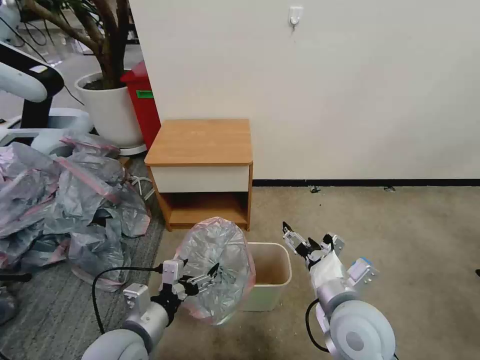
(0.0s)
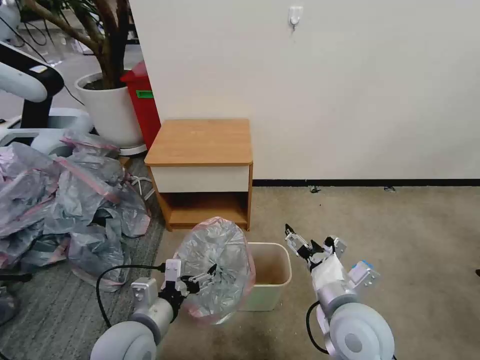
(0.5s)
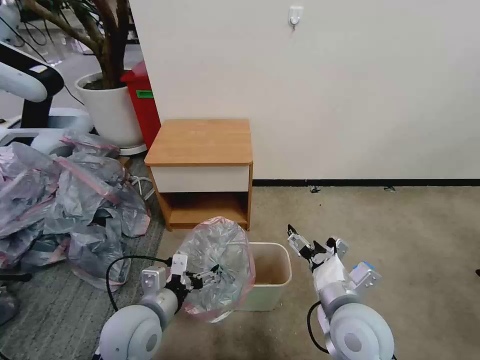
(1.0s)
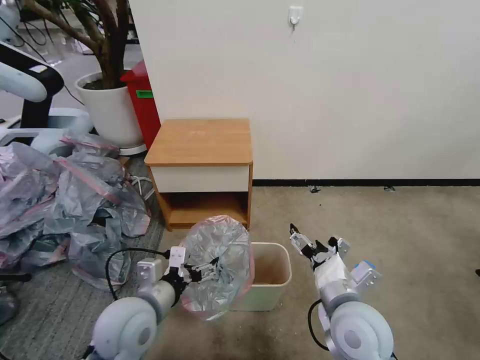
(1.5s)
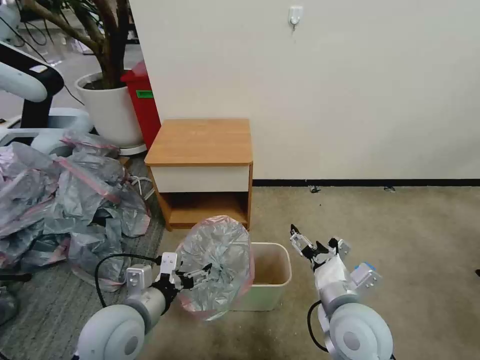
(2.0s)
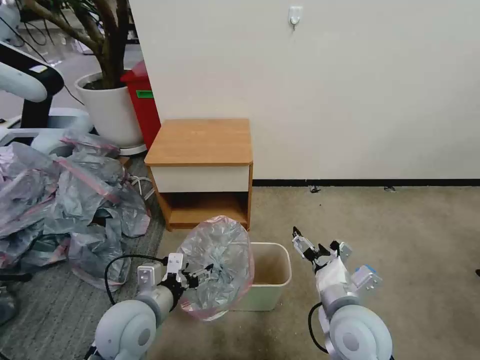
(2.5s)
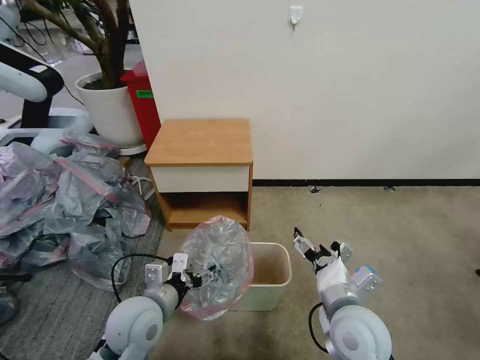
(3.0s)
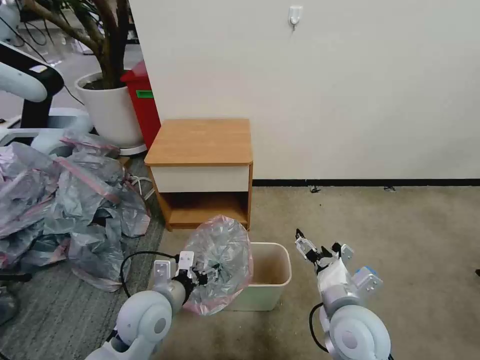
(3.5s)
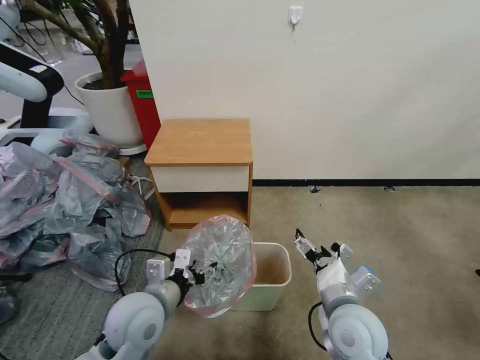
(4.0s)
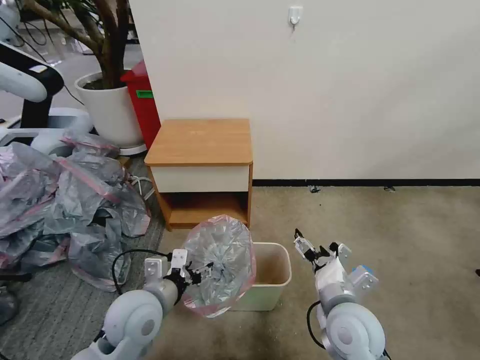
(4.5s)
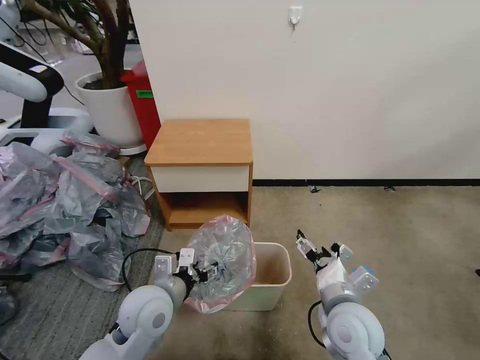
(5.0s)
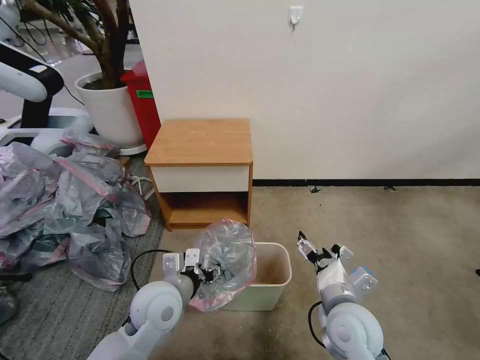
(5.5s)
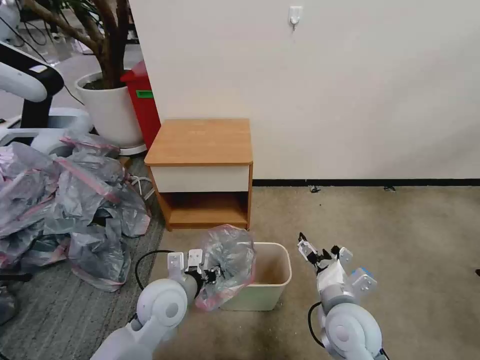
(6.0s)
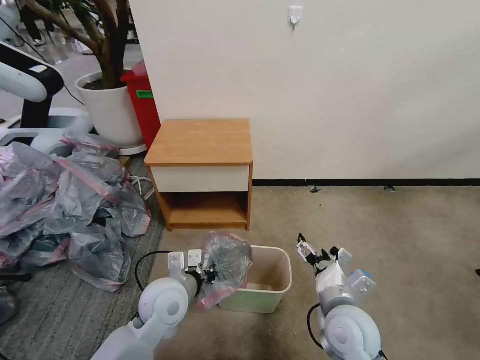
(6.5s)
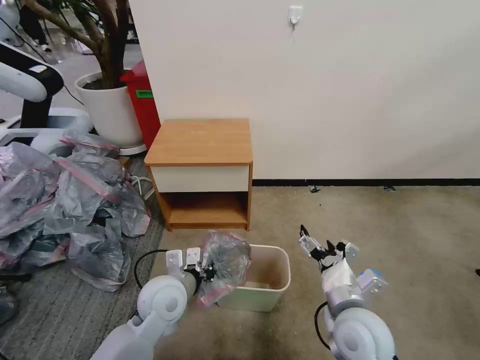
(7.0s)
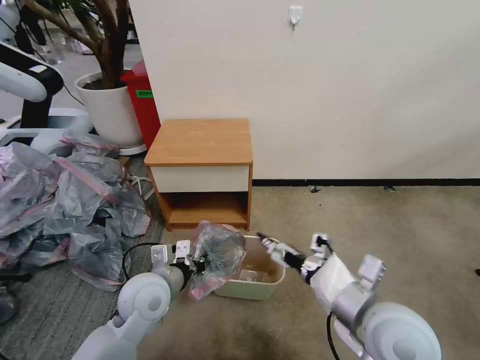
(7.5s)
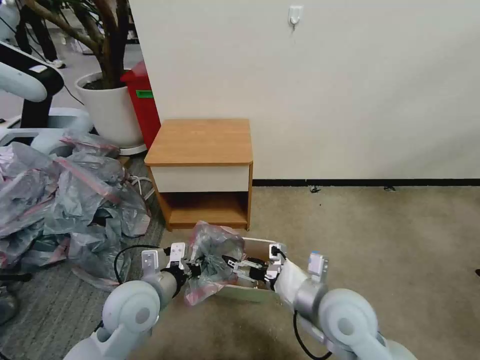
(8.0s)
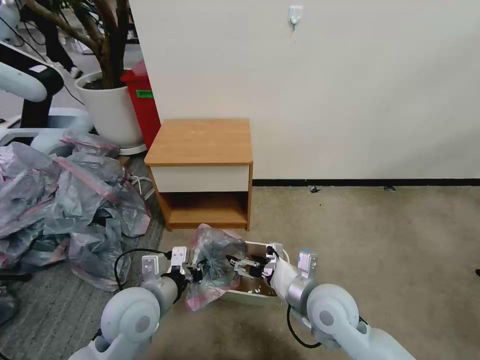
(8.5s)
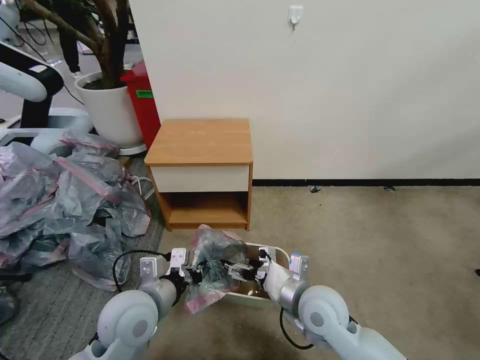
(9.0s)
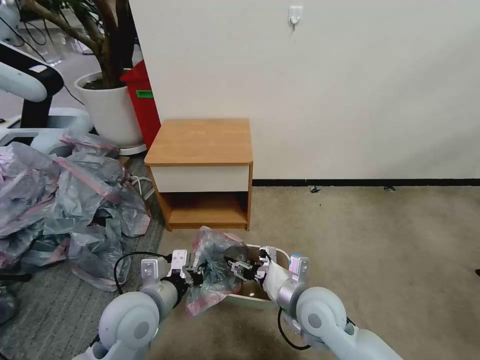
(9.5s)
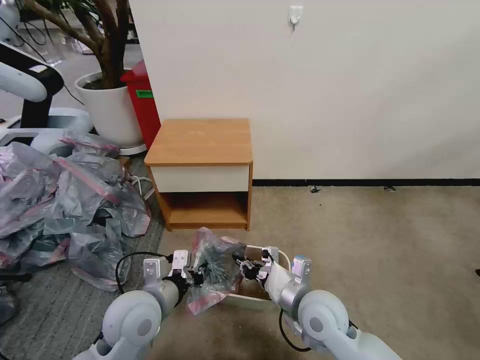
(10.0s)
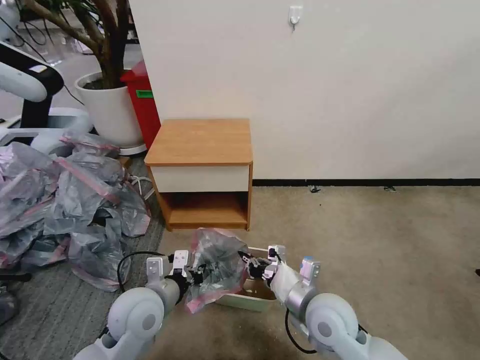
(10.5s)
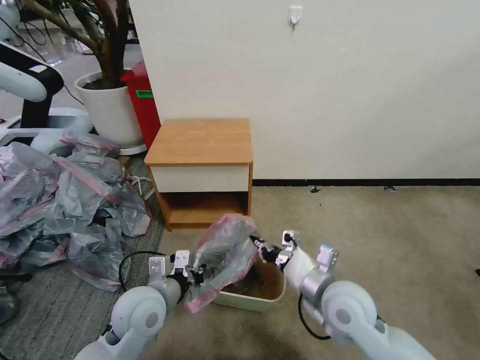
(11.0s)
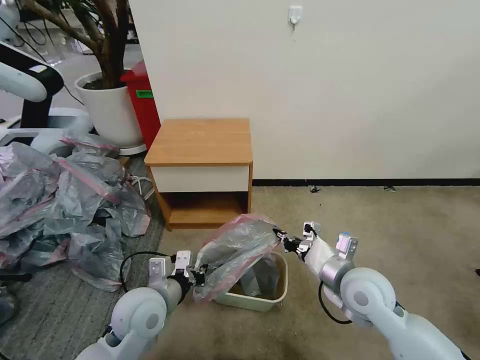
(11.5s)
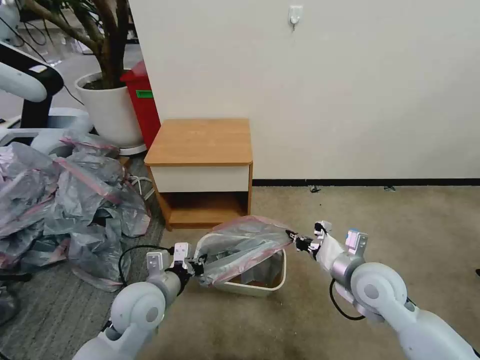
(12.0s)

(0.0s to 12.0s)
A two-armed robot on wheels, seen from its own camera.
Task of the whole recording: Pick up the garbage bag from the table and place it over the trash can.
0.0s - 2.0s: The grippers make only small movements.
4.0s - 6.0s: The left gripper changes place by roughly 5 cm.
6.0s - 8.0s: The right gripper moves upward, roughly 5 cm. The left gripper moves some 5 cm, and closes.
8.0s - 10.0s: The right gripper is displaced downward by about 5 cm, and closes its fingers.
10.0s - 12.0s: The right gripper is displaced to the right by approximately 10 cm.

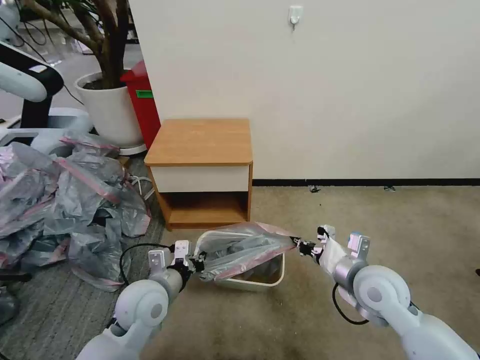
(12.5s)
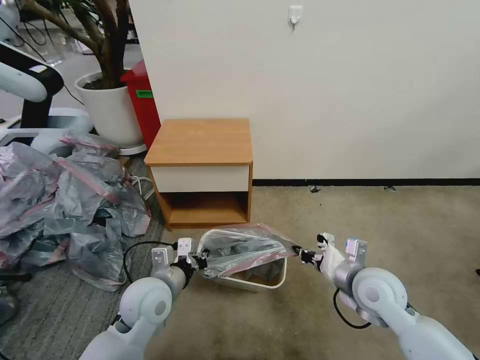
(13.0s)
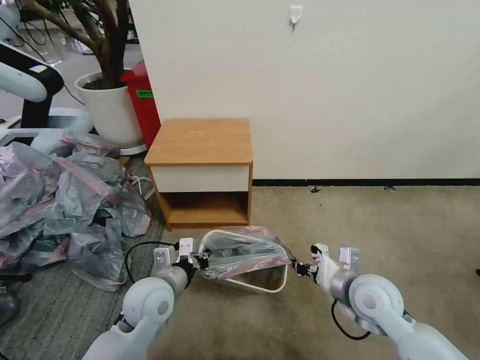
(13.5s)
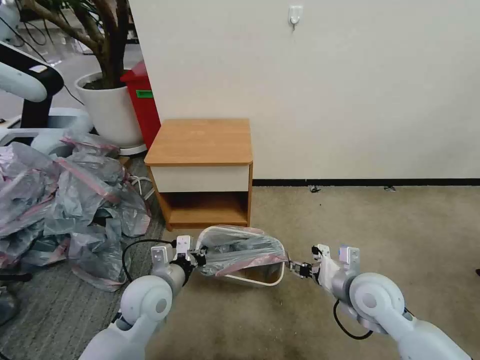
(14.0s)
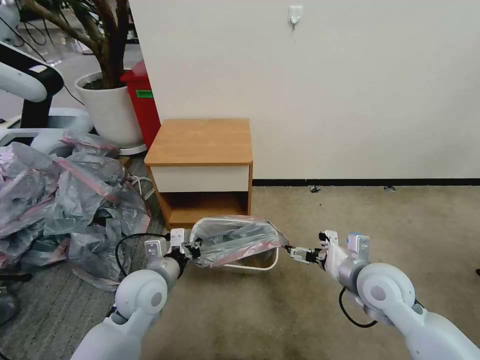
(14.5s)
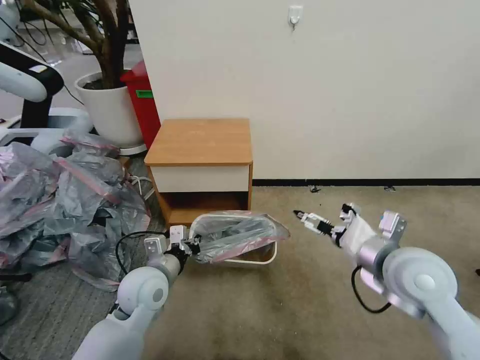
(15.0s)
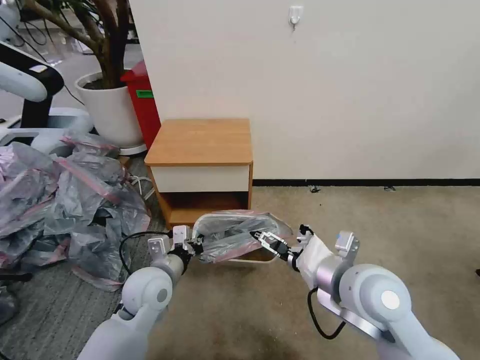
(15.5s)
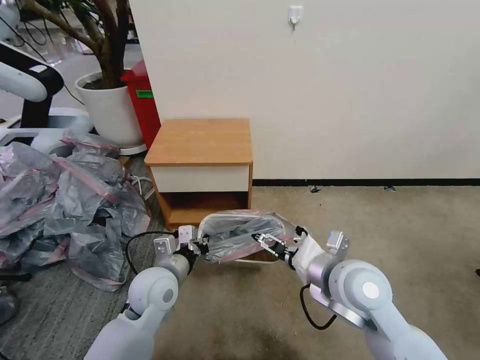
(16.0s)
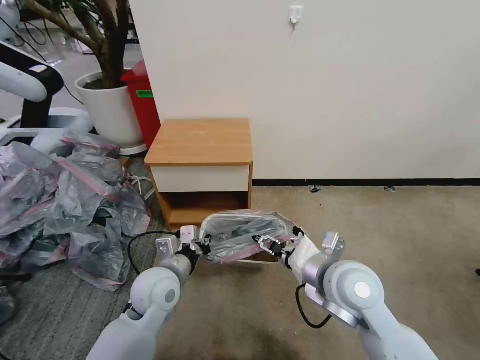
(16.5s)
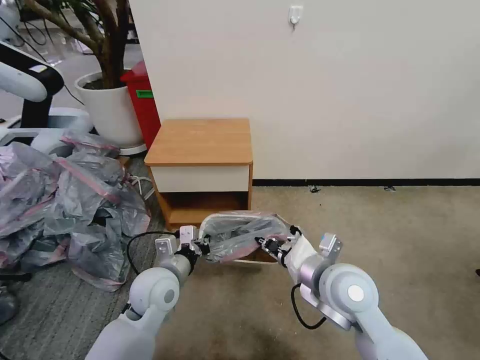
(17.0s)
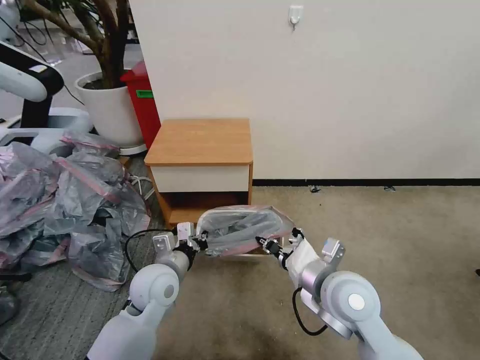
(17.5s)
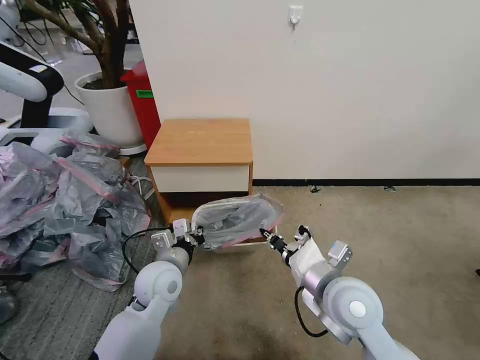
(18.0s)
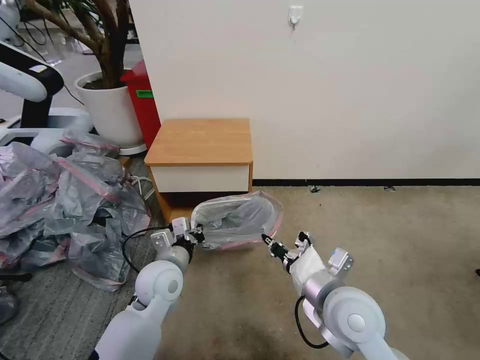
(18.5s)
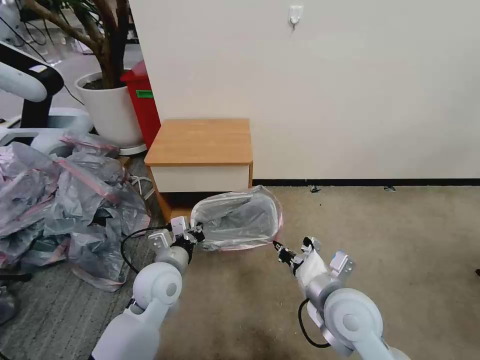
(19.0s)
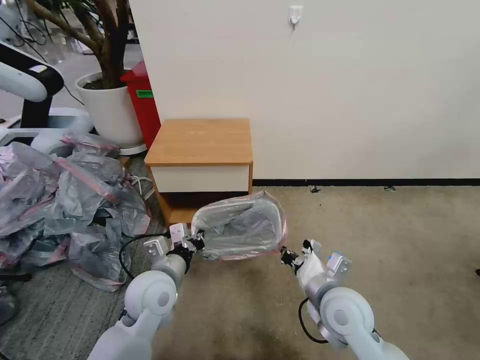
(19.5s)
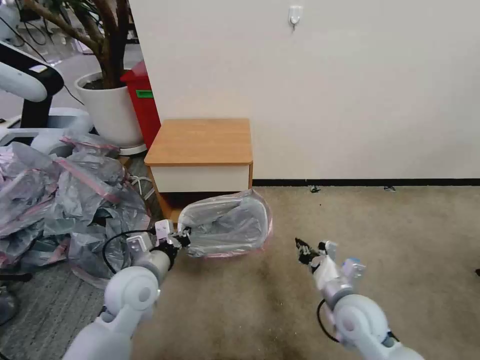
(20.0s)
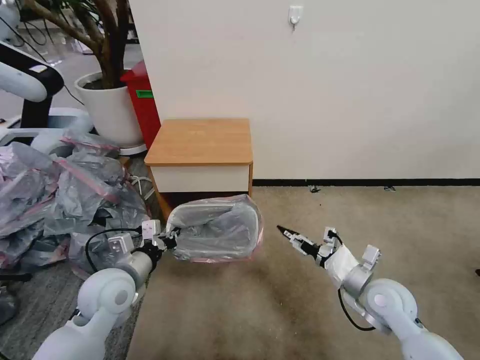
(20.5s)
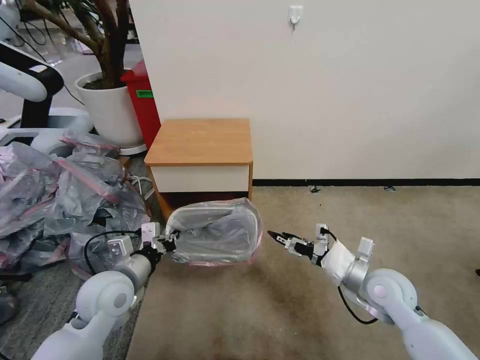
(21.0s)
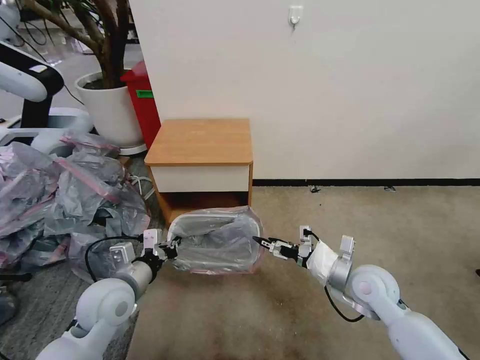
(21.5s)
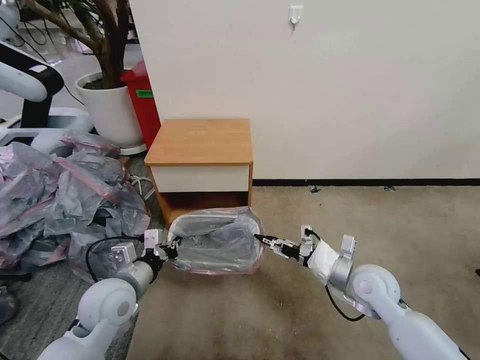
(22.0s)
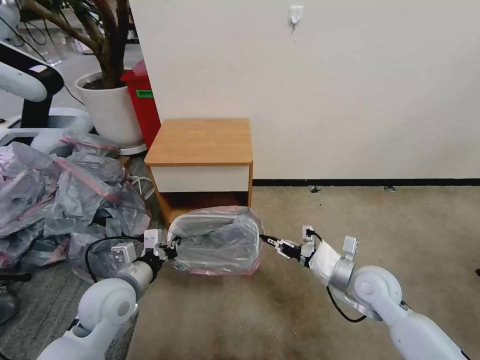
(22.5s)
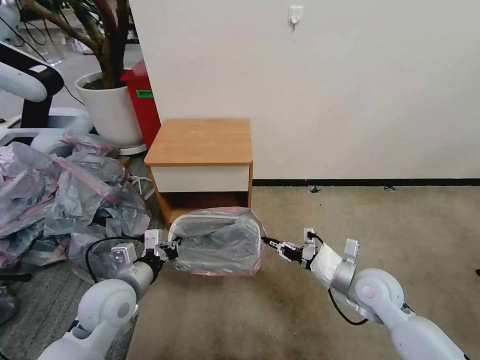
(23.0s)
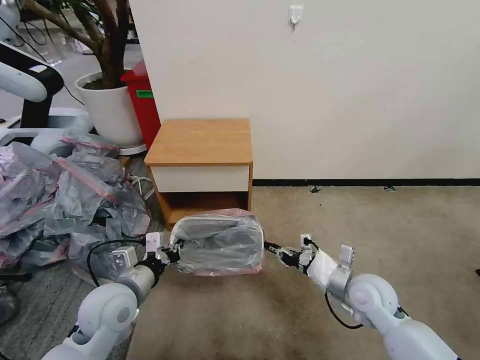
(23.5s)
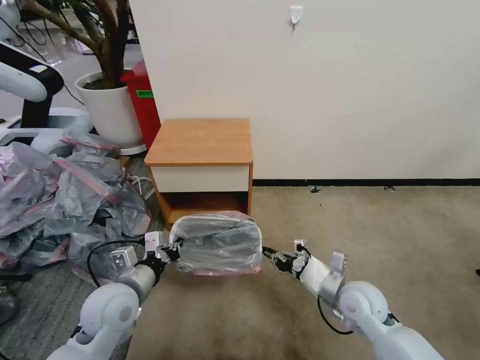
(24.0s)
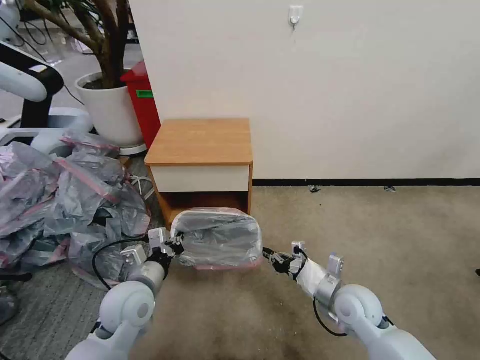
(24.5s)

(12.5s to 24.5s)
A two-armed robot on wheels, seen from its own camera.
Task of the whole recording: Pick up the garbage bag from the table and place it over the trash can.
12.5s - 14.5s: The right gripper opens its fingers.
14.5s - 16.5s: The right gripper shifts roughly 10 cm to the left, and closes up.
16.5s - 18.5s: The right gripper closes.
18.5s - 20.5s: The left gripper moves to the left, about 10 cm, while the right gripper heads to the right and downward, covering some 15 cm, and opens its fingers.
20.5s - 22.5s: The right gripper closes its fingers.
22.5s - 24.5s: The right gripper shifts by roughly 5 cm.

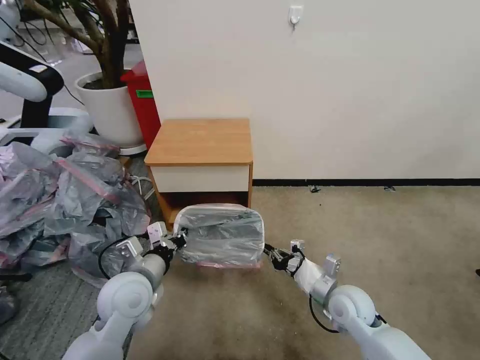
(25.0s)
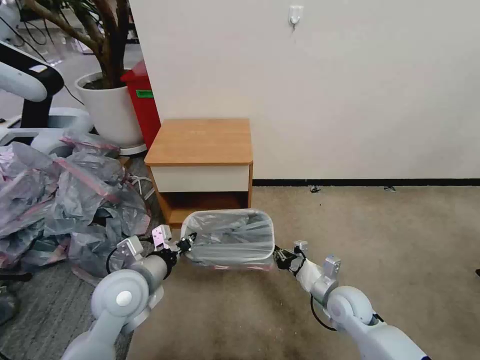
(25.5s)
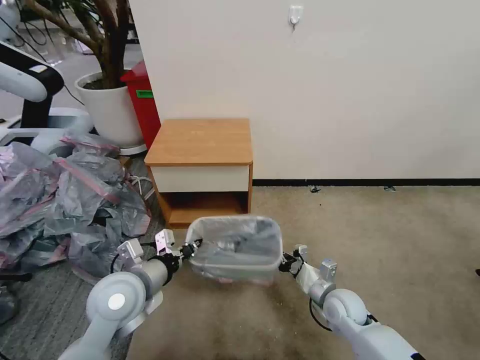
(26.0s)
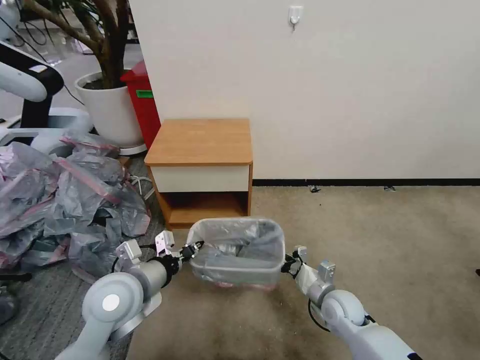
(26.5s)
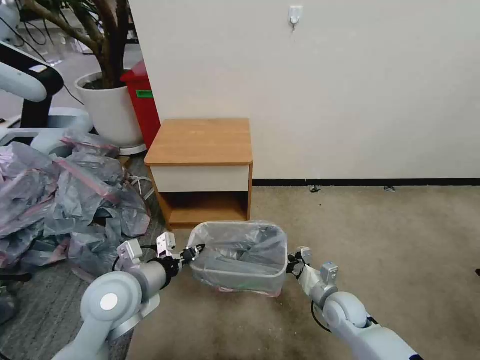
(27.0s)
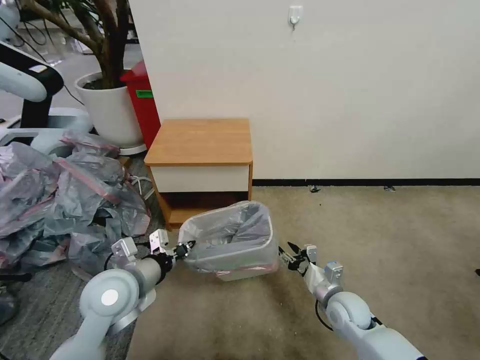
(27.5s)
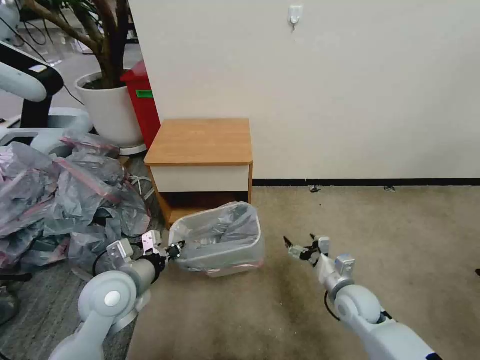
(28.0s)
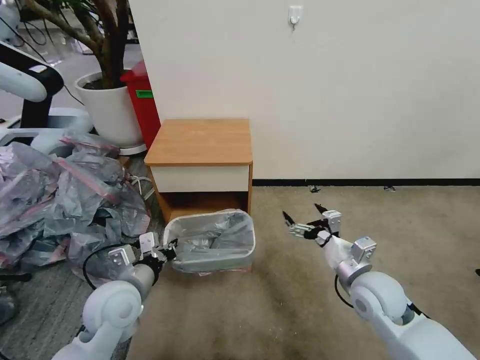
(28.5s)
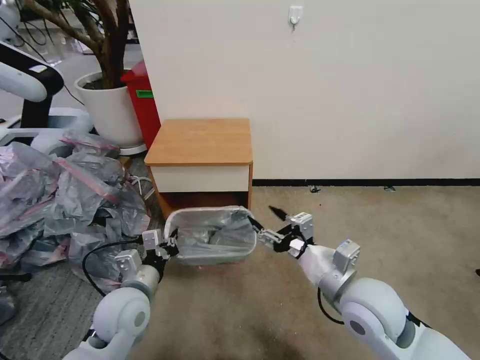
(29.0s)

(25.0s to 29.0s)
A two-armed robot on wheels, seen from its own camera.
Task of the whole recording: Pick up the garbage bag from the table and place it over the trash can.
25.0s - 27.0s: The right gripper travels downward by about 5 cm.
27.0s - 29.0s: The left gripper moves downward, some 5 cm, while the right gripper travels upward by about 20 cm, and opens its fingers.
